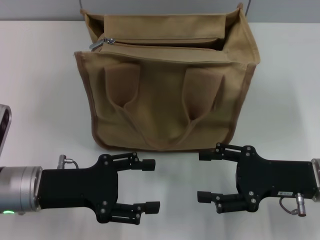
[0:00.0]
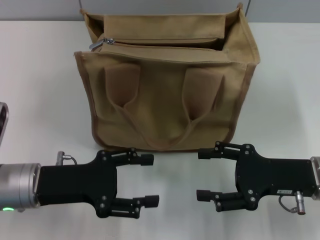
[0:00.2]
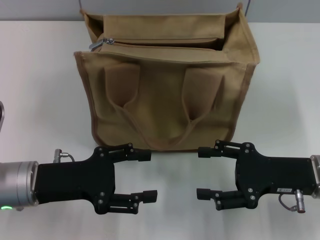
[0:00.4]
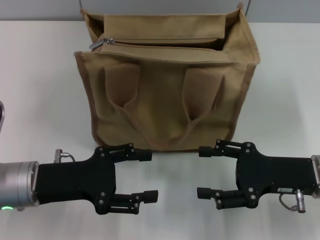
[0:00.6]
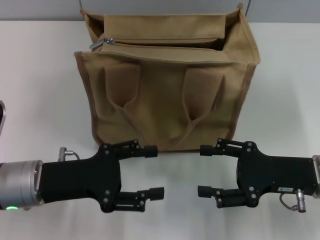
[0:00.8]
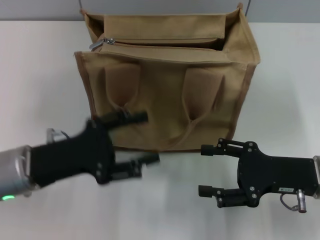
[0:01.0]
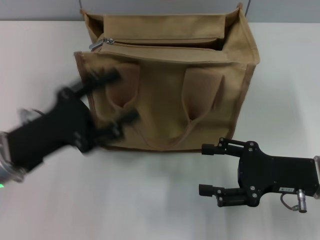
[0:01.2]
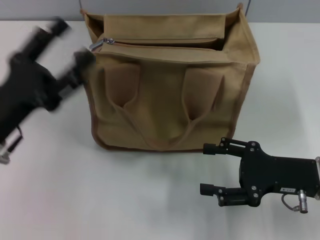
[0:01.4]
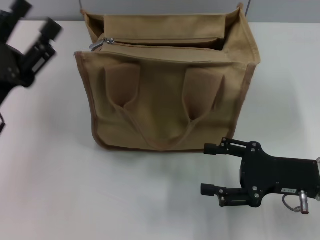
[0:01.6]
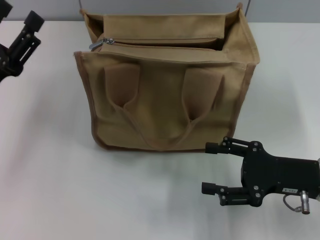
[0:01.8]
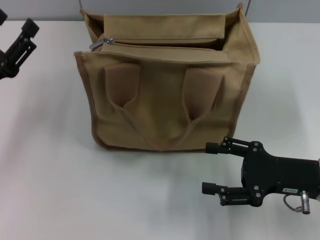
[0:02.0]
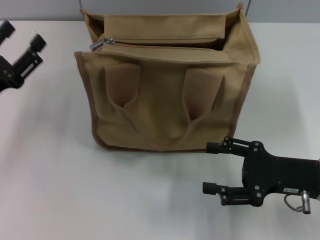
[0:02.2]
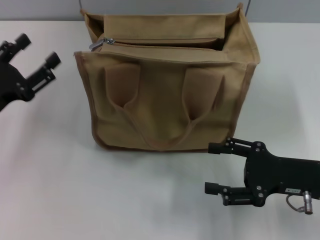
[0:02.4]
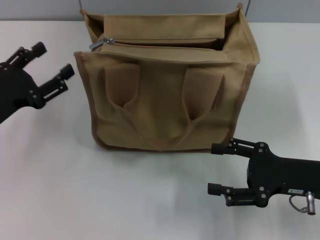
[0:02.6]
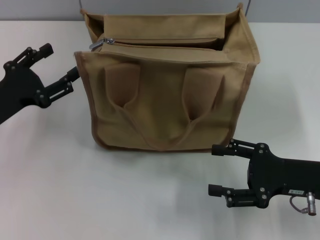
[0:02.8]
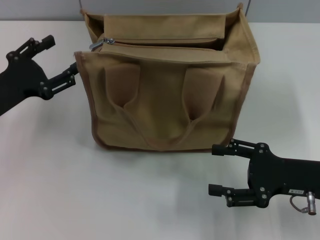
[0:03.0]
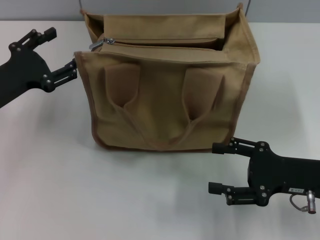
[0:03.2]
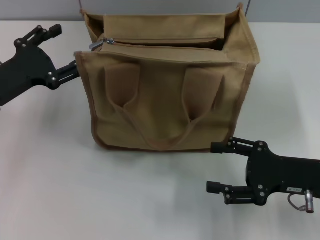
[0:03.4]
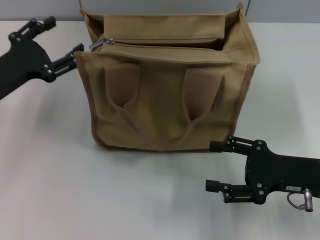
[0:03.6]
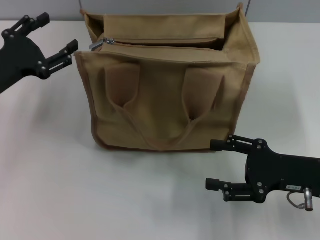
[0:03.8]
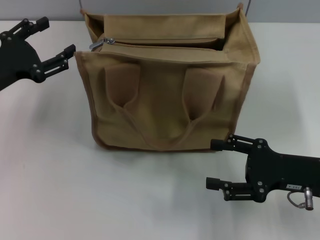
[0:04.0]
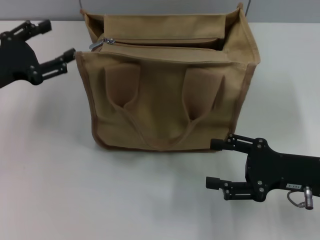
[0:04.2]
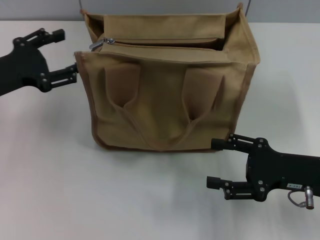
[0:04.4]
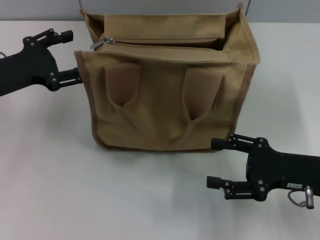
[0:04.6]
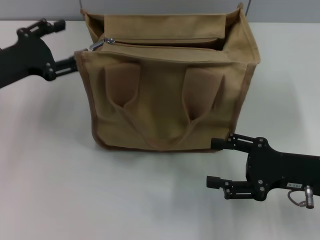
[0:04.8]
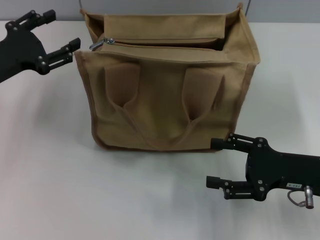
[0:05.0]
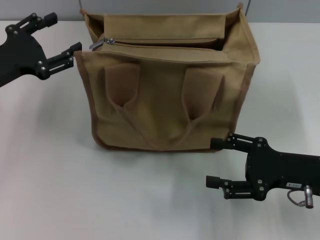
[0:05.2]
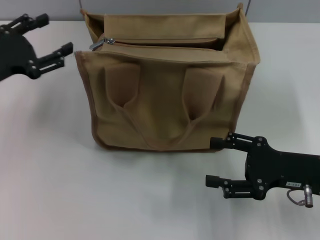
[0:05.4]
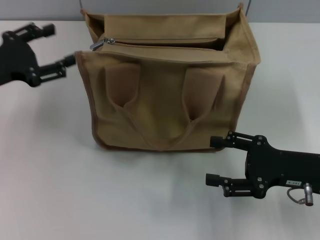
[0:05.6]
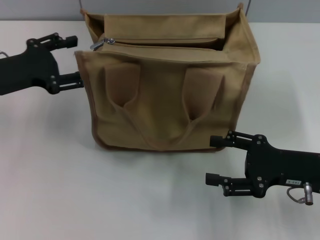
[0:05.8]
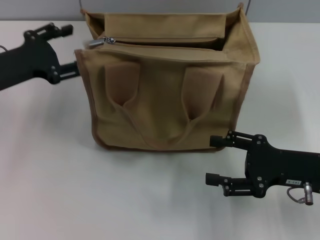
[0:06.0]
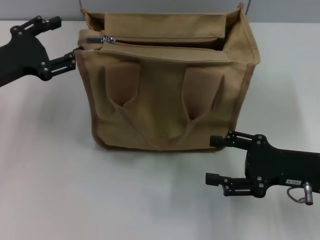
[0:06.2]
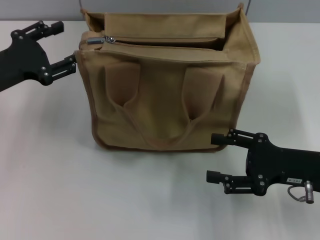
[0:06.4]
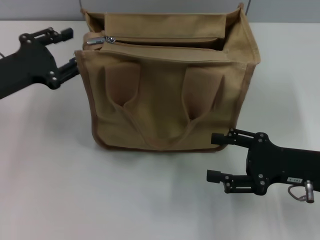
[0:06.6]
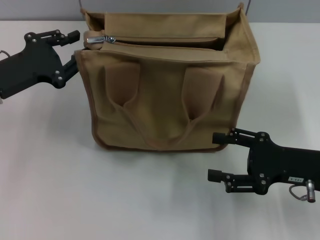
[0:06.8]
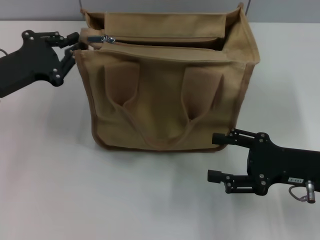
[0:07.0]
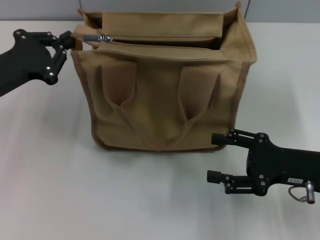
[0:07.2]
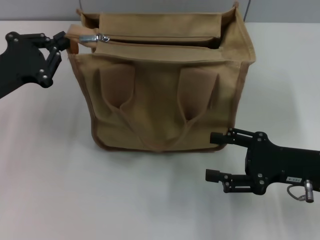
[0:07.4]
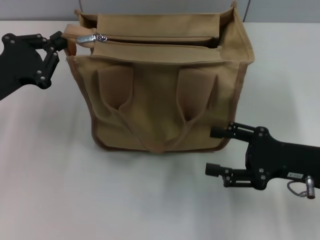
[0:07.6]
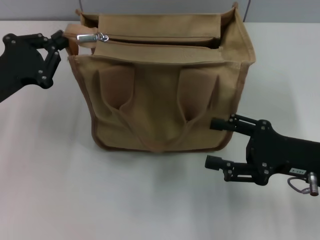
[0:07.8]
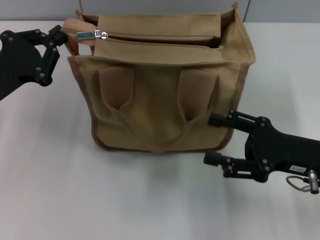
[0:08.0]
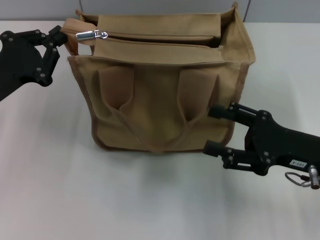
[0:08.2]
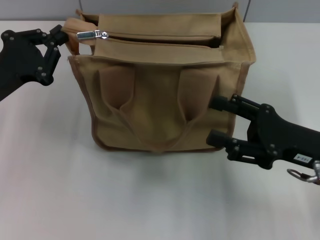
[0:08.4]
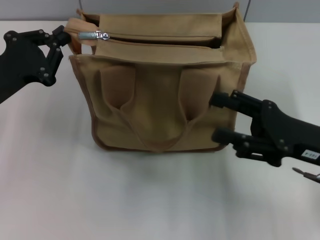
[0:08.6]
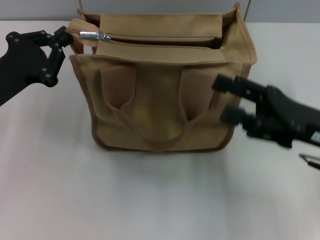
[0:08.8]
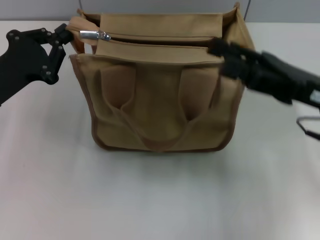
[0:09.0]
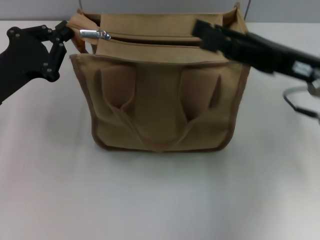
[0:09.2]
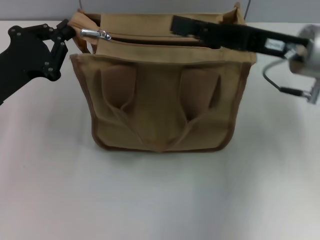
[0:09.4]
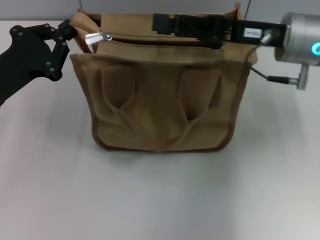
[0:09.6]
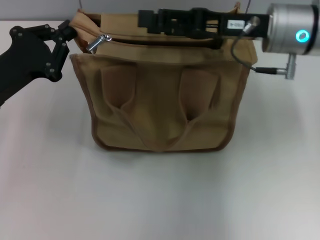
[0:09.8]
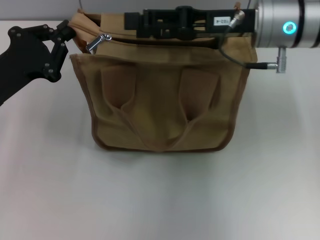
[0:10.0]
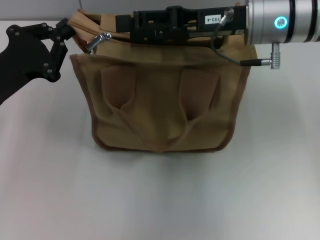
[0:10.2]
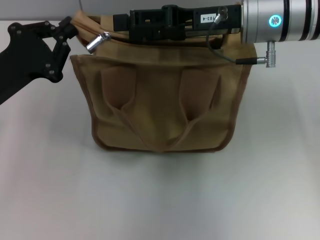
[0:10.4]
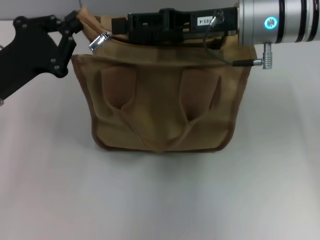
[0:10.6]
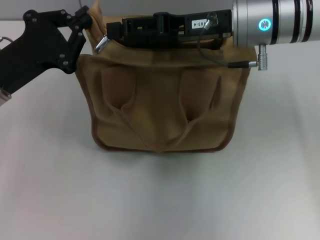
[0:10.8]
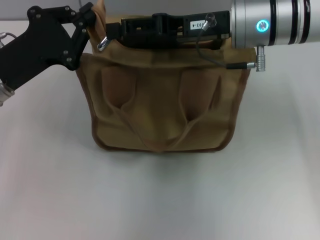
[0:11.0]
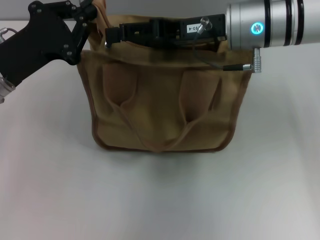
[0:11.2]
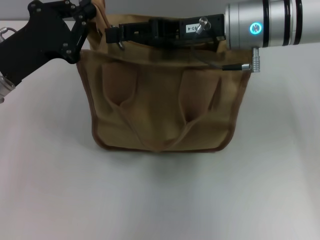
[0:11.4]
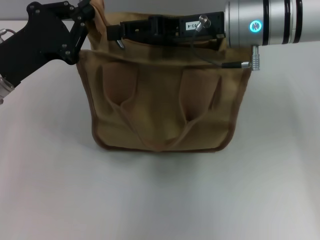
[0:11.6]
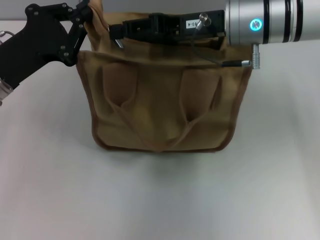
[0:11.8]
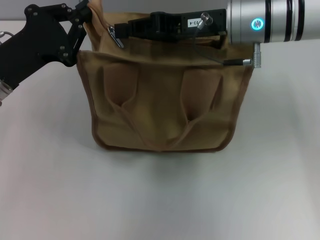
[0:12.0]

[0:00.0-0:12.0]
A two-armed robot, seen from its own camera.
0:00.0 to 0:01.6: The left gripper shifts by about 5 cm.
0:01.6 to 0:03.0: The left gripper shifts by about 5 cm.
0:03.0 to 0:06.0: The grippers make only small movements.
0:06.0 to 0:07.6: The left gripper closes.
0:07.6 to 0:09.0: The right gripper travels upward by some 5 cm.
0:09.0 to 0:10.4: The right gripper heads forward, to the left and upward, covering about 15 cm.
0:10.4 to 0:12.0: The right gripper closes.

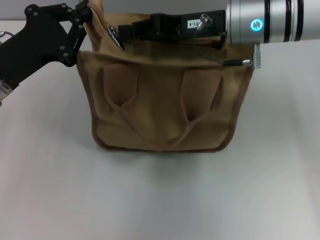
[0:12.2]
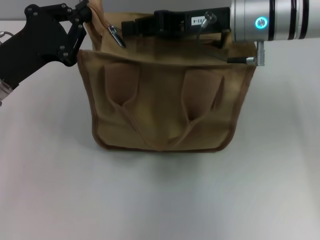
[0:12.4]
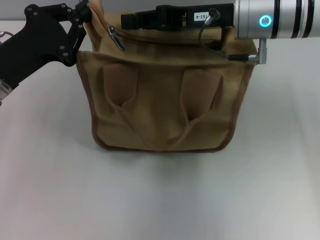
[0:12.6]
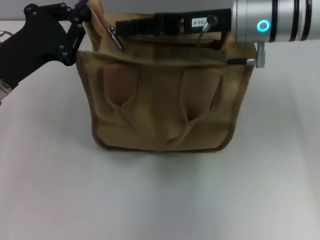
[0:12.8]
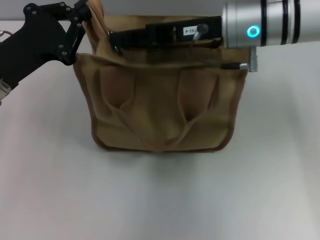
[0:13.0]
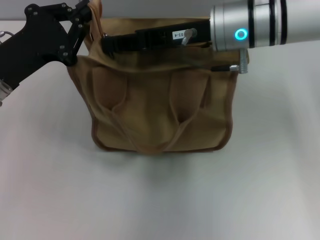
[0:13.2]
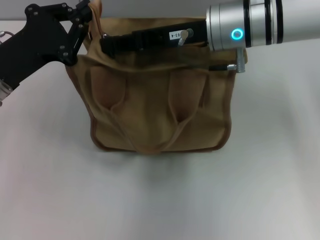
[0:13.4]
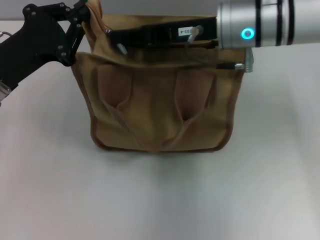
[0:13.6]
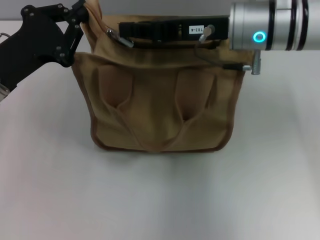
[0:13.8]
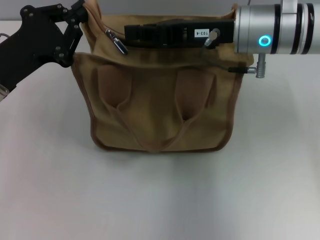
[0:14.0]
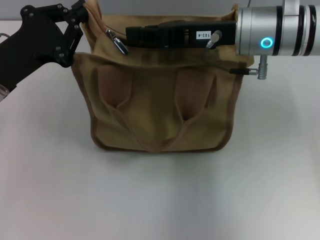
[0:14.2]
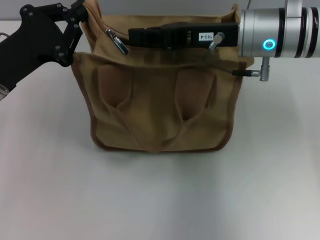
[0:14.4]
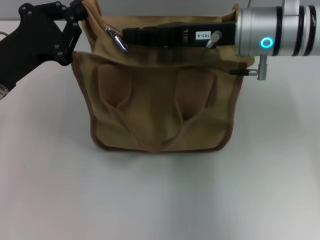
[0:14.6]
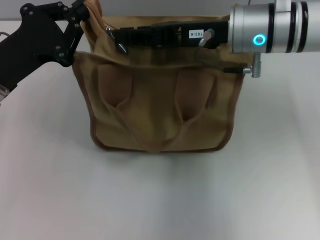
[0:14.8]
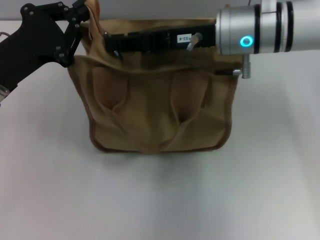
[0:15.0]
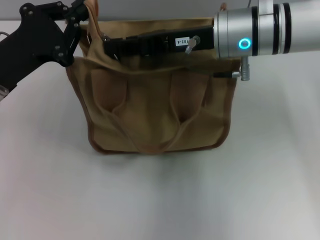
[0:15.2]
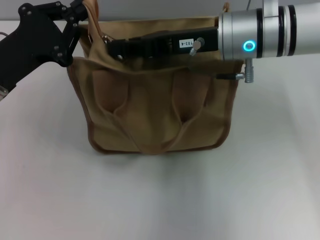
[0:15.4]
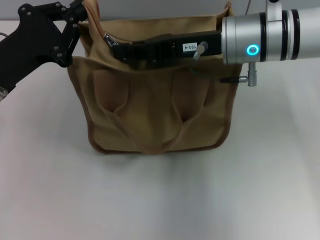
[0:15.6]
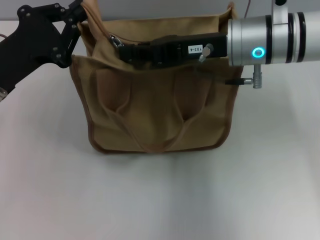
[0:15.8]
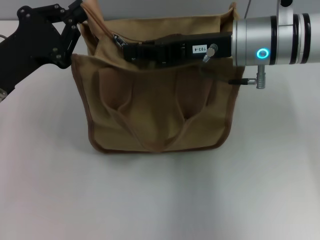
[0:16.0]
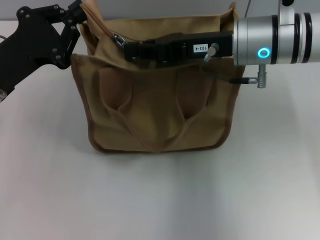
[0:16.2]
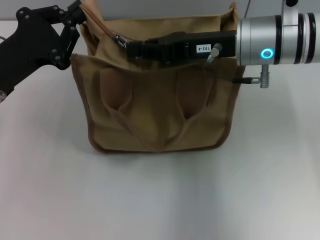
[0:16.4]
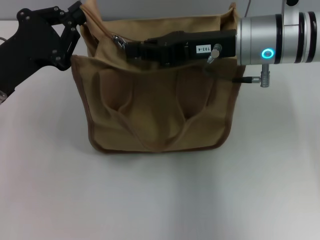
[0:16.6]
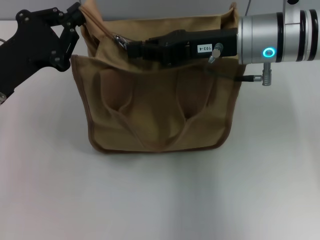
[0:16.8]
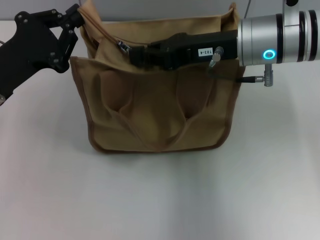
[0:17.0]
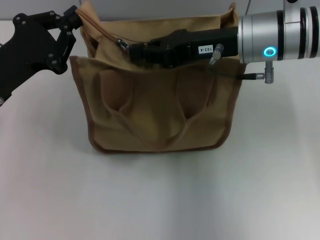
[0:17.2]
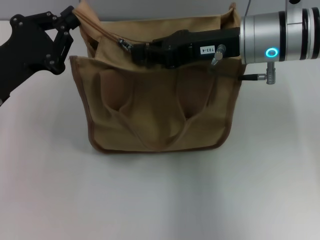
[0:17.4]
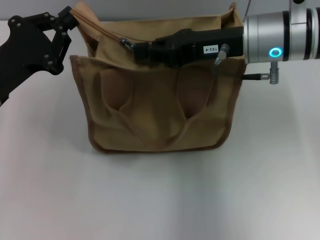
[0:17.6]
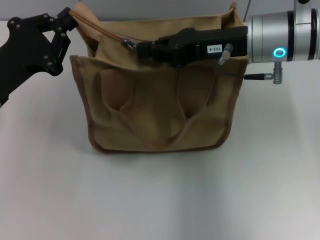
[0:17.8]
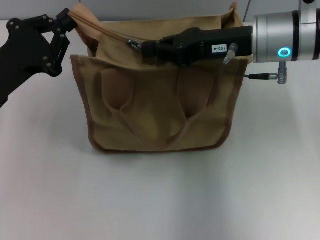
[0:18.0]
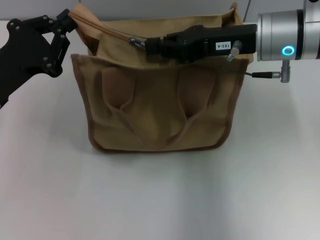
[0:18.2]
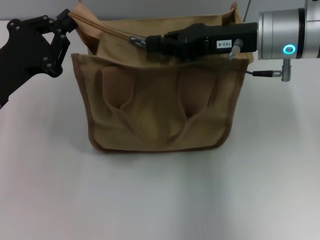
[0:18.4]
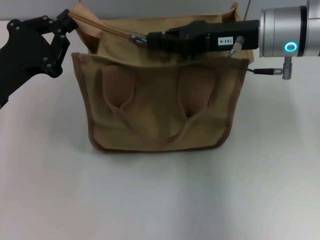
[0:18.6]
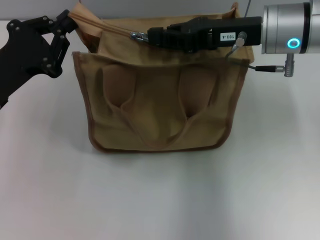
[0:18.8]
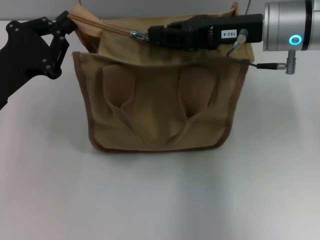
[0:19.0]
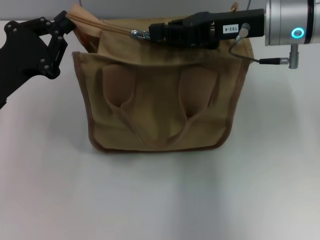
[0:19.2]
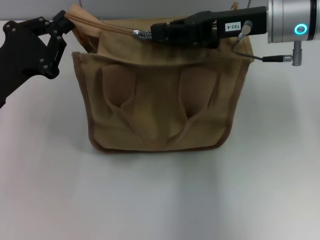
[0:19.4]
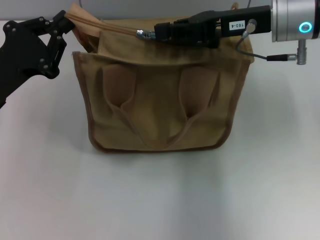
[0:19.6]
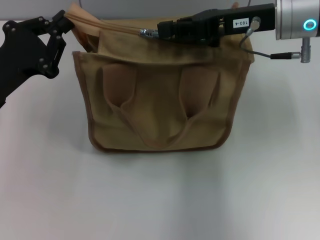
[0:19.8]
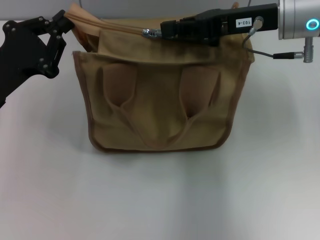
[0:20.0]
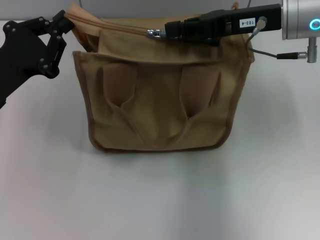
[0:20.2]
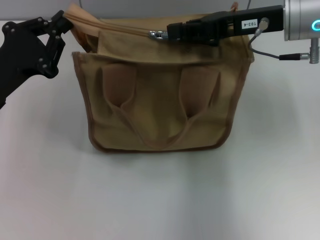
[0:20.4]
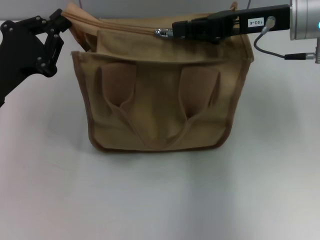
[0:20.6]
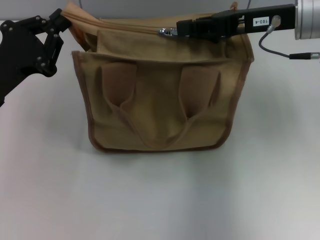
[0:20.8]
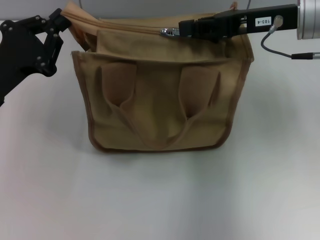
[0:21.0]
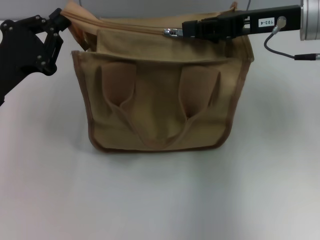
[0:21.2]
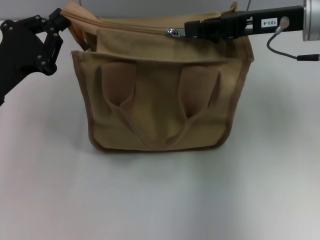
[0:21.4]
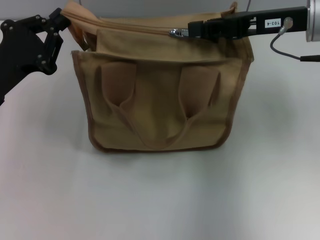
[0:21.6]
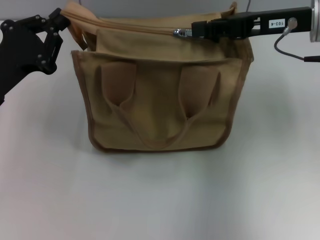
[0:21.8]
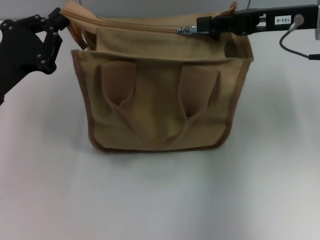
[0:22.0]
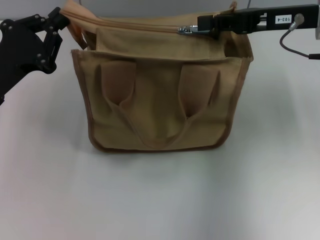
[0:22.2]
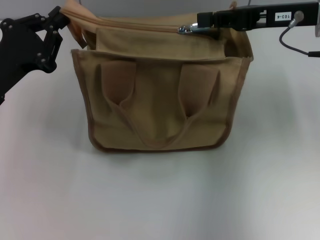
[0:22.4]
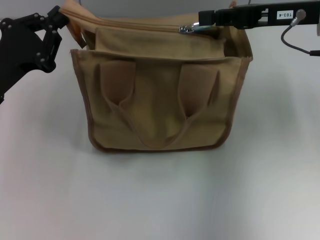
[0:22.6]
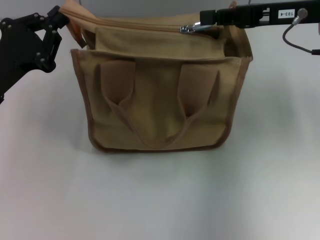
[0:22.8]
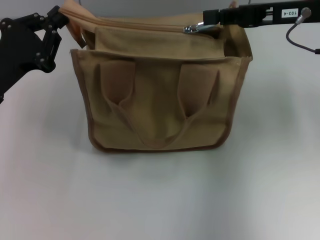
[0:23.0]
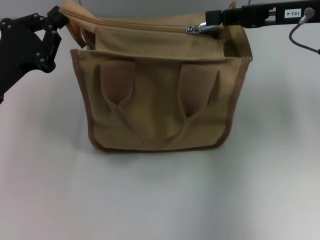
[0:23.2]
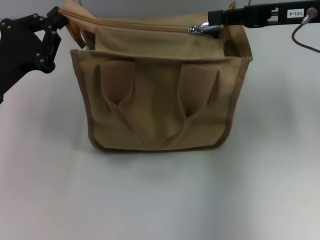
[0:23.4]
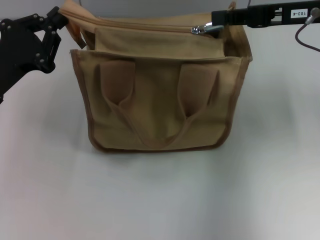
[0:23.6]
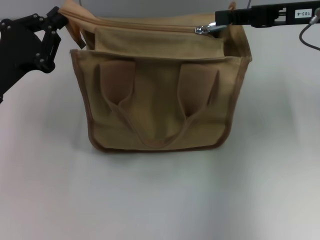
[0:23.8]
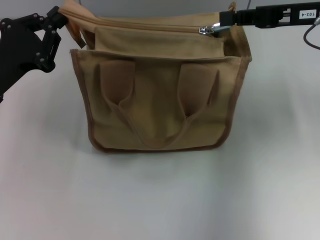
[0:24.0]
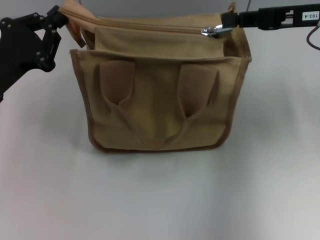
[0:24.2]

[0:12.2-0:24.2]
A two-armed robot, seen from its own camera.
0:12.2 to 0:16.6: The grippers make only small movements.
0:16.6 to 0:19.8: There are only small adjustments of the grippers.
0:19.8 to 0:22.6: The grippers move only a little.
0:22.6 to 0:24.2: The grippers move only a little.
